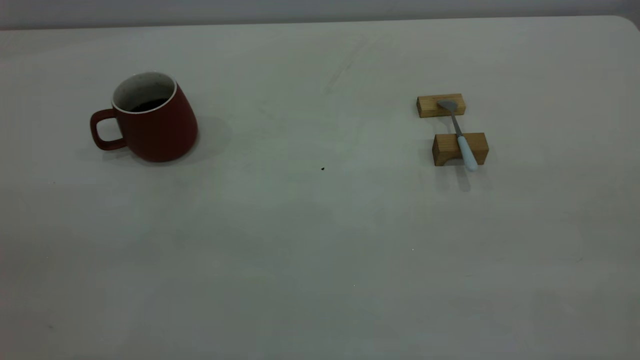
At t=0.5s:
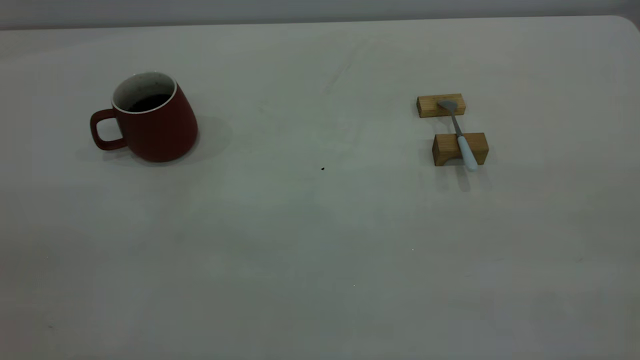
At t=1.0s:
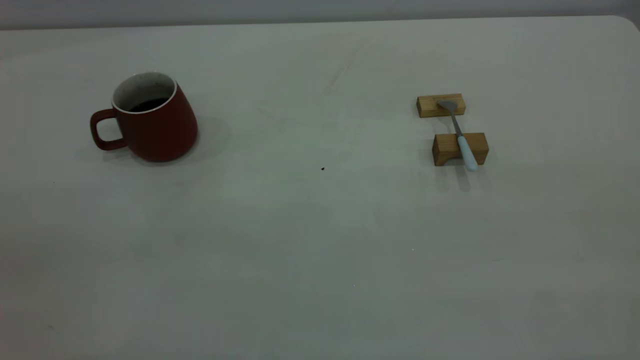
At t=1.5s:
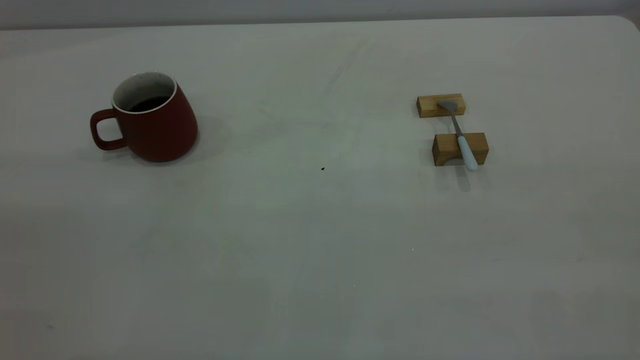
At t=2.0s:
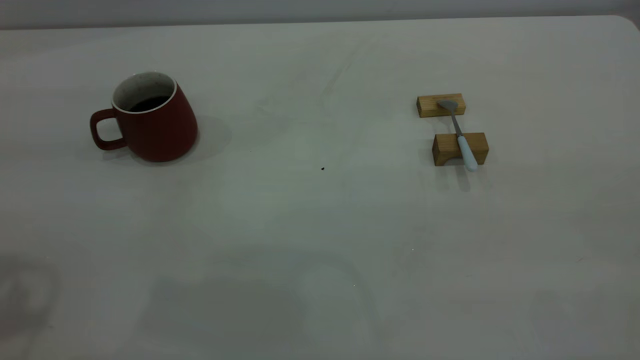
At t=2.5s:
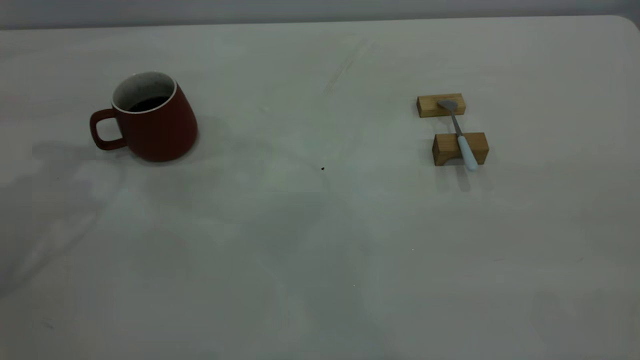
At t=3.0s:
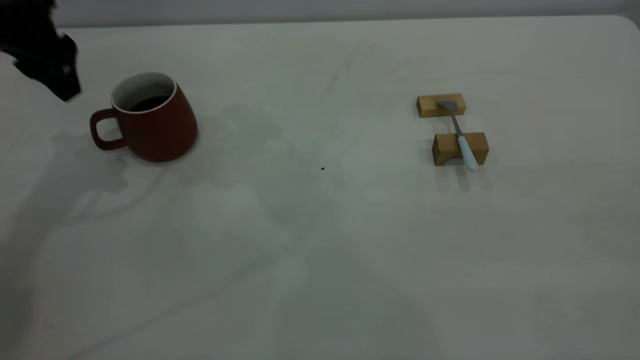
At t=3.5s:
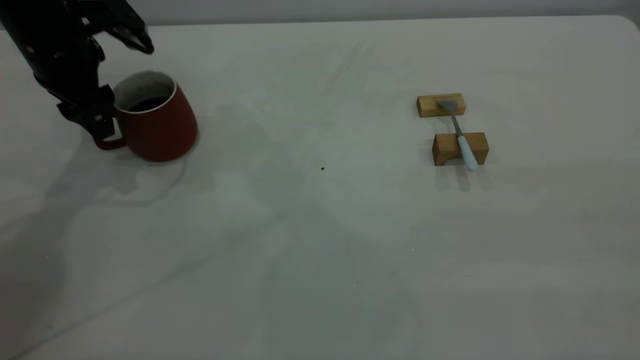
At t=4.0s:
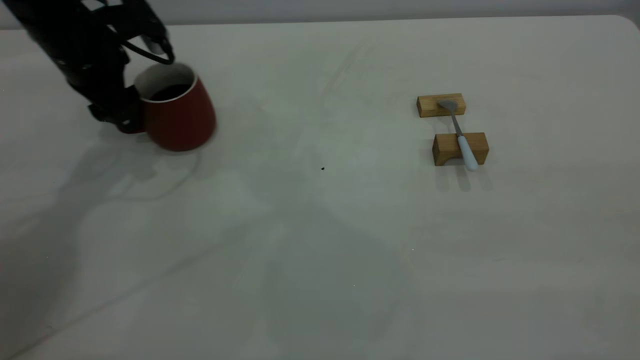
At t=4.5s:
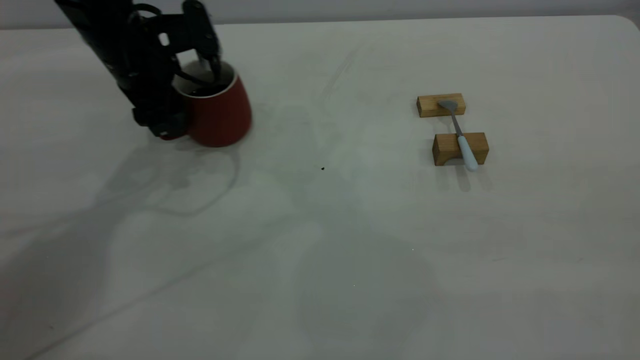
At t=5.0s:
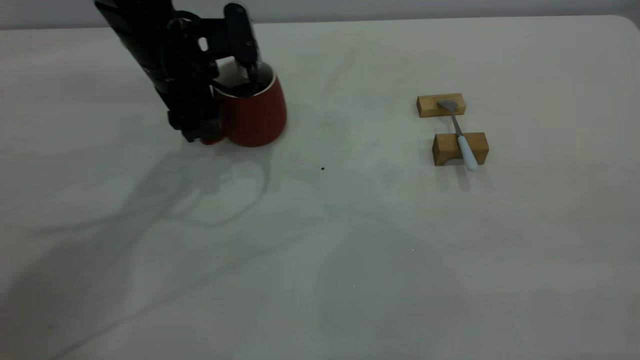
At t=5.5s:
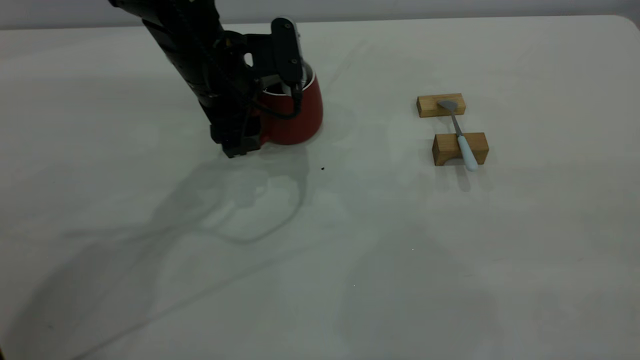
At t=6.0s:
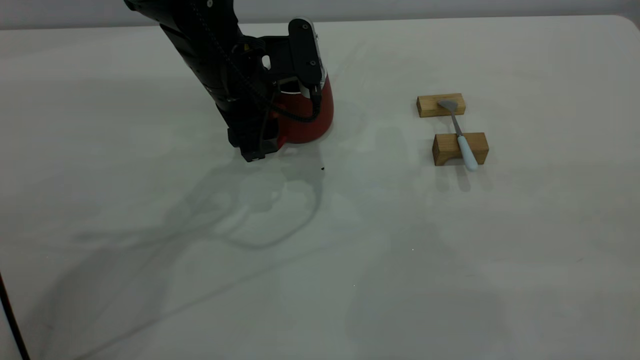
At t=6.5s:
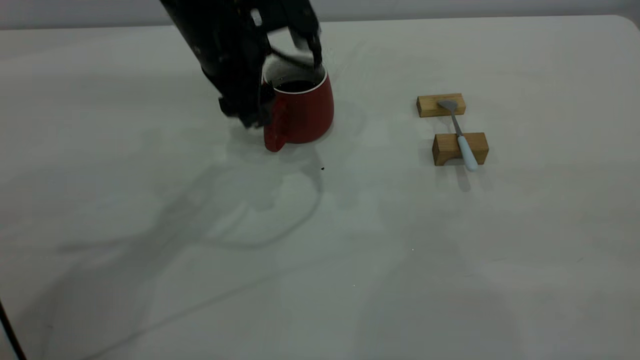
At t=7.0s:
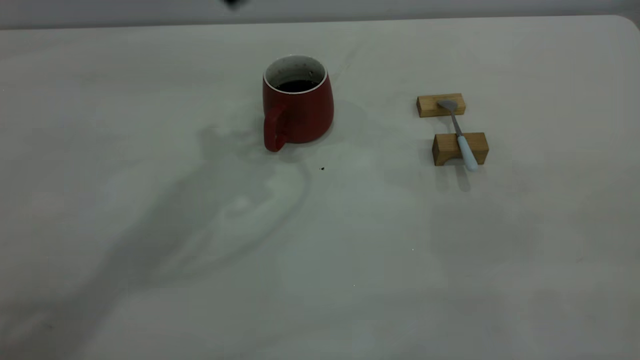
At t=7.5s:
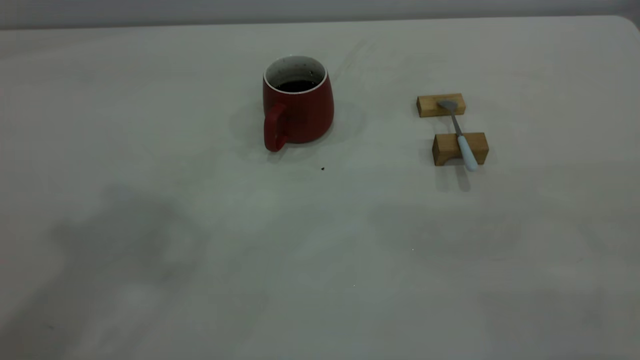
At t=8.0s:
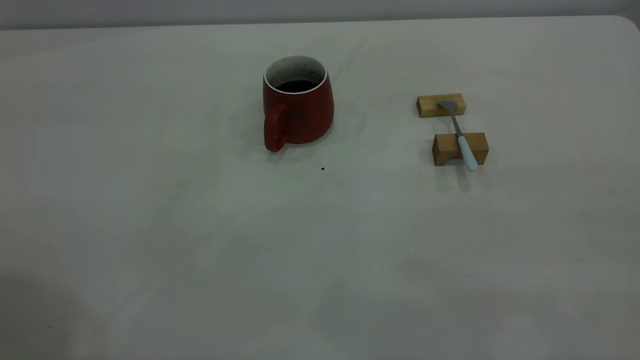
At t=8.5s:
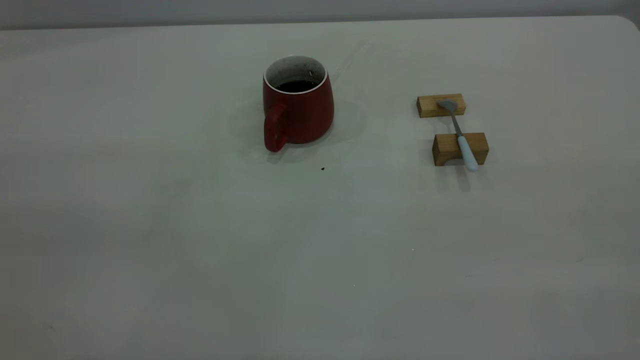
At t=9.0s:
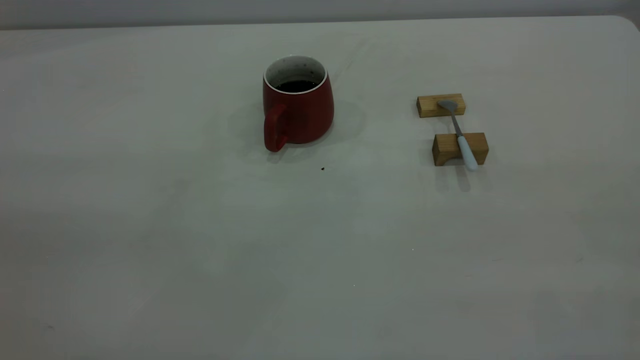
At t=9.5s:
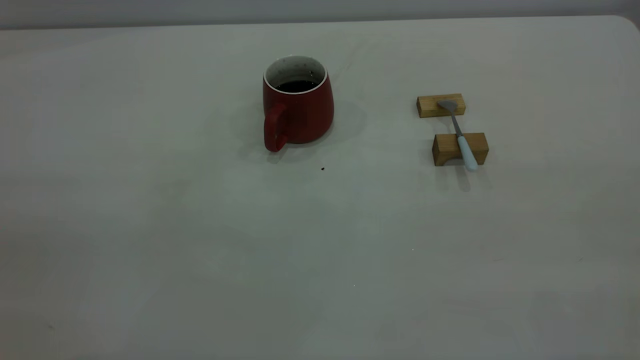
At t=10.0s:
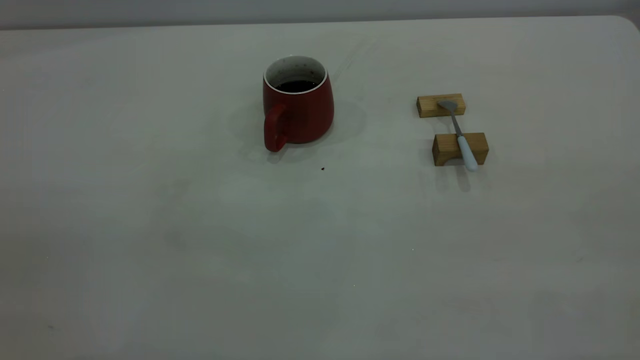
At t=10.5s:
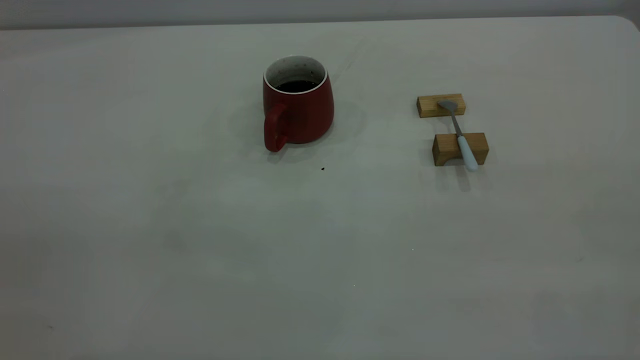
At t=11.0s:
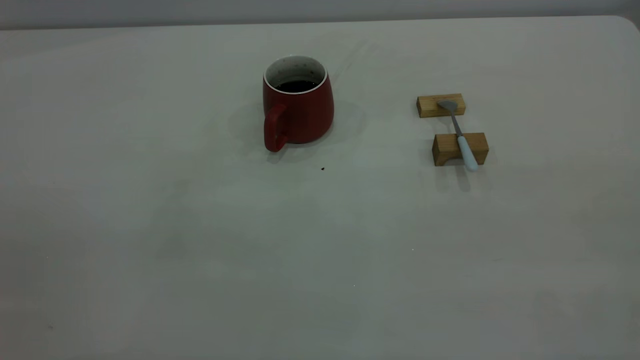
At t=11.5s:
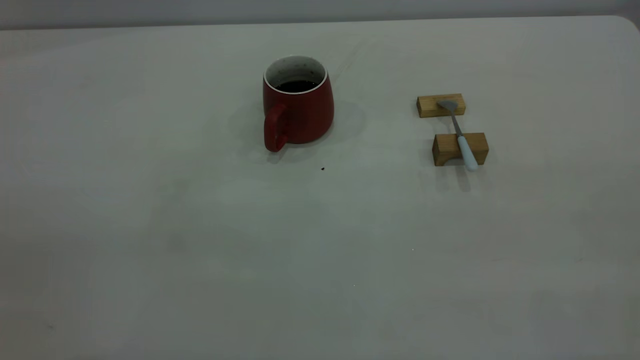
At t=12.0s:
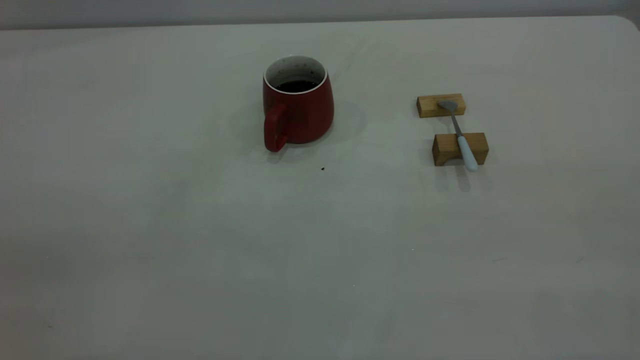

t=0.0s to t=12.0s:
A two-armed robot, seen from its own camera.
Step, t=0.0s to t=6.5s: Move the cup with coffee to the center of view.
t=2.0s to t=4.0s: The left gripper heads forward and downward, covering approximately 30 cm.
t=4.0s to t=6.0s: The left gripper travels to the right by some 15 cm.
t=6.0s to t=8.0s: The left gripper heads upward, backward and to the left, covering about 50 cm.

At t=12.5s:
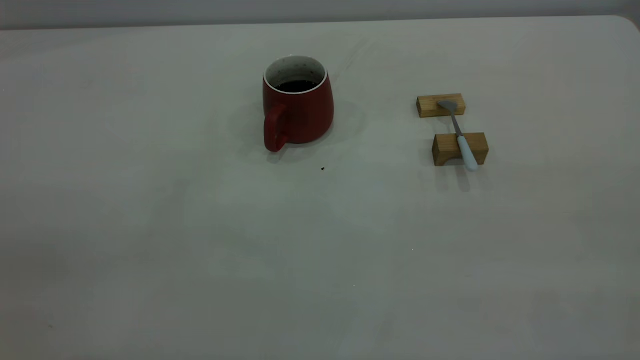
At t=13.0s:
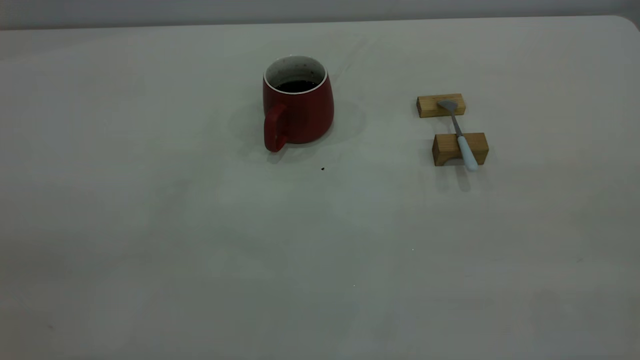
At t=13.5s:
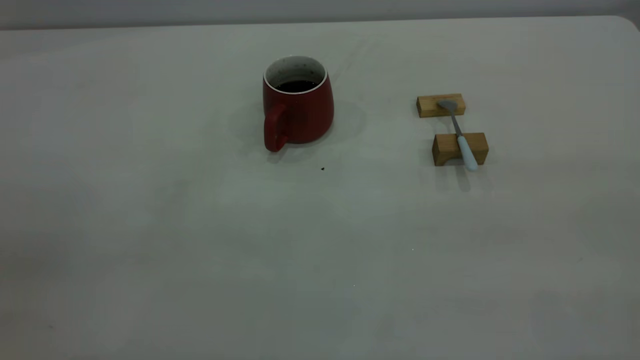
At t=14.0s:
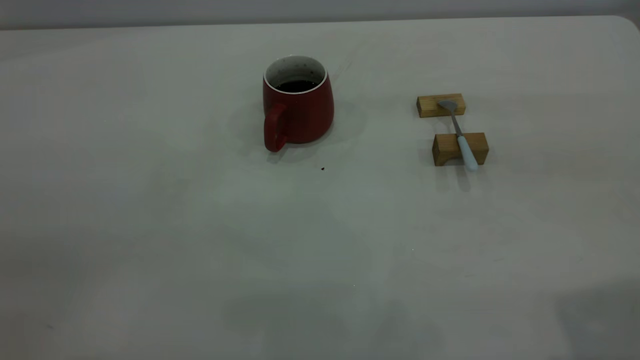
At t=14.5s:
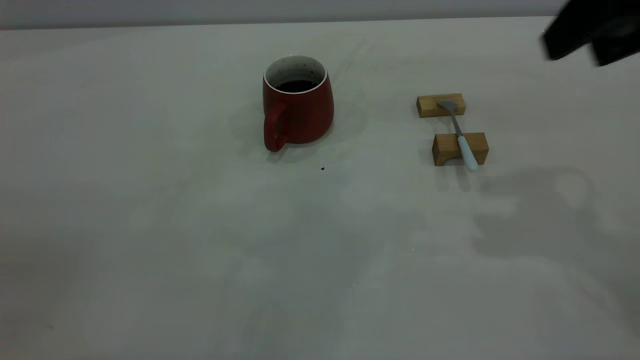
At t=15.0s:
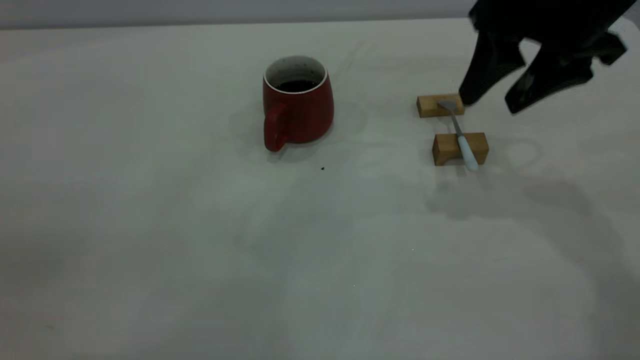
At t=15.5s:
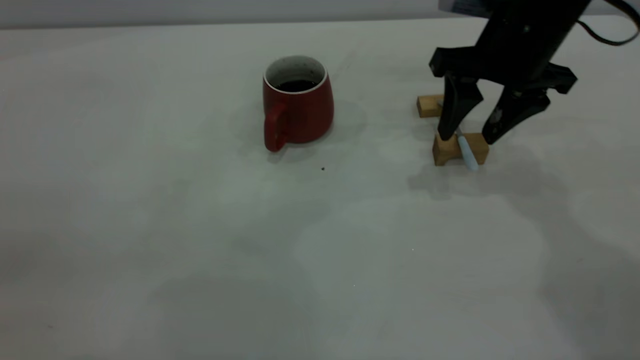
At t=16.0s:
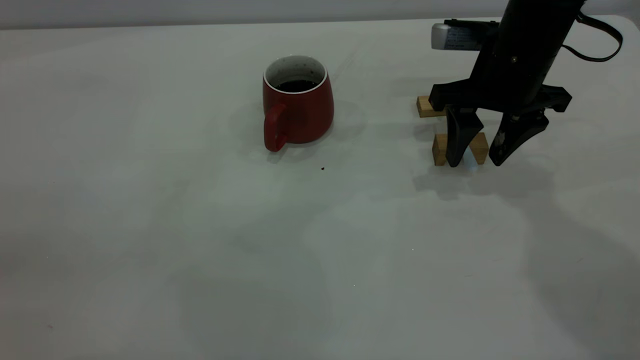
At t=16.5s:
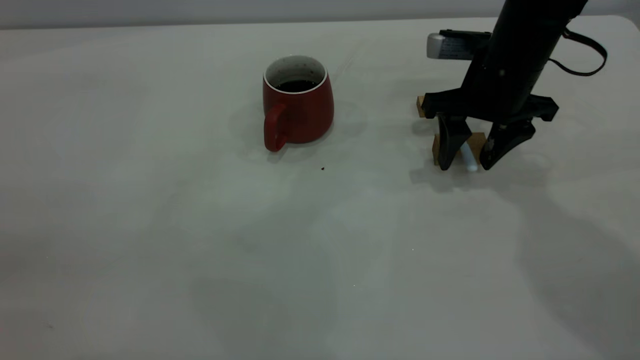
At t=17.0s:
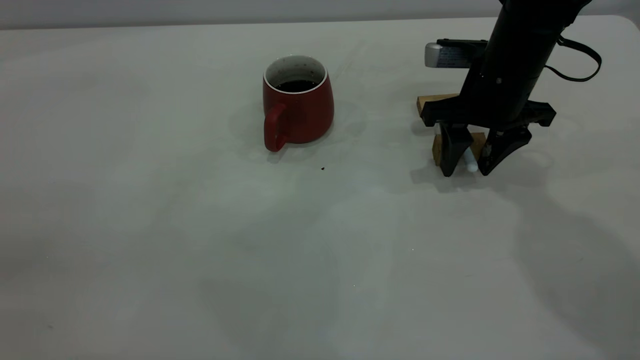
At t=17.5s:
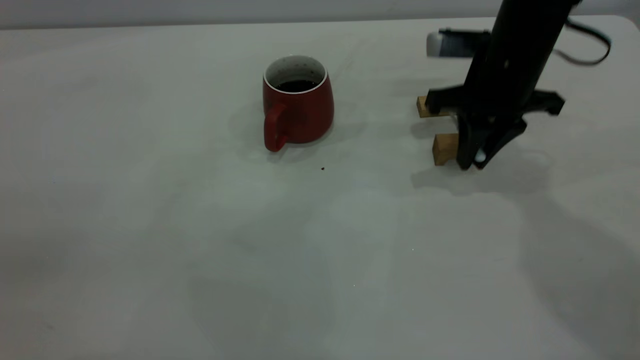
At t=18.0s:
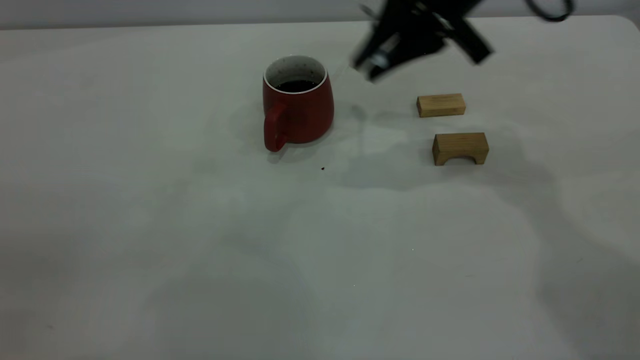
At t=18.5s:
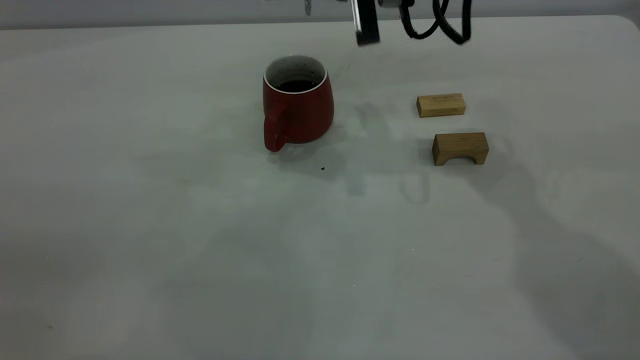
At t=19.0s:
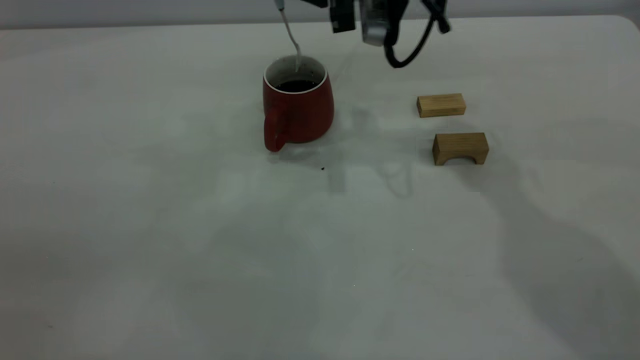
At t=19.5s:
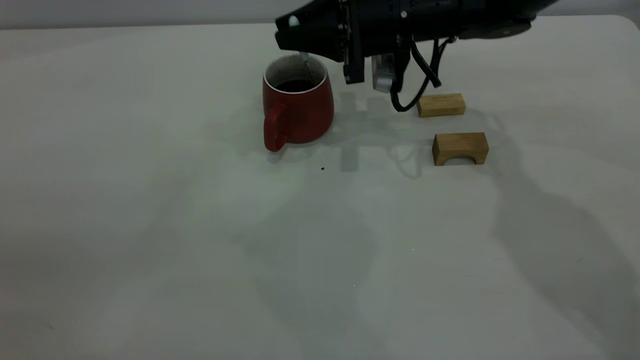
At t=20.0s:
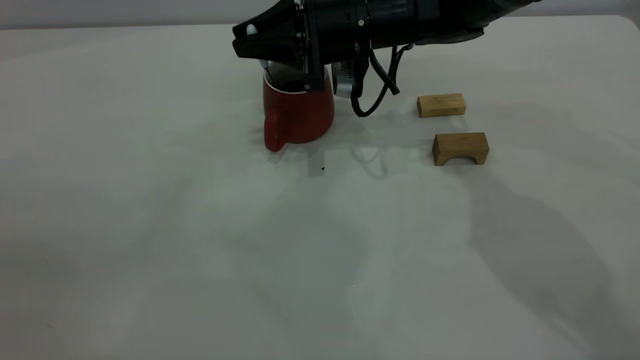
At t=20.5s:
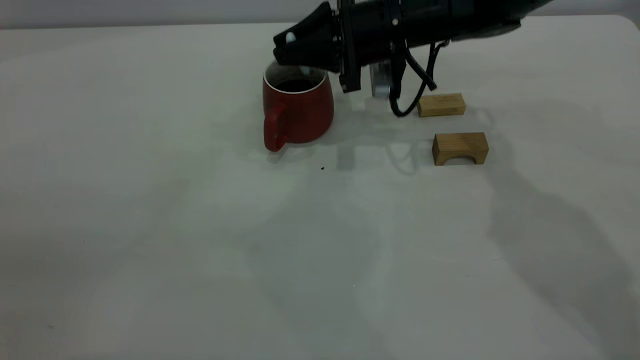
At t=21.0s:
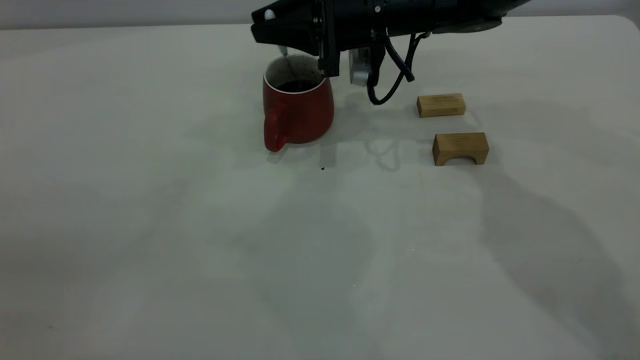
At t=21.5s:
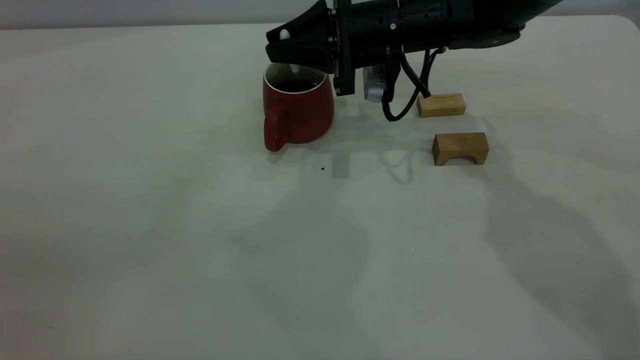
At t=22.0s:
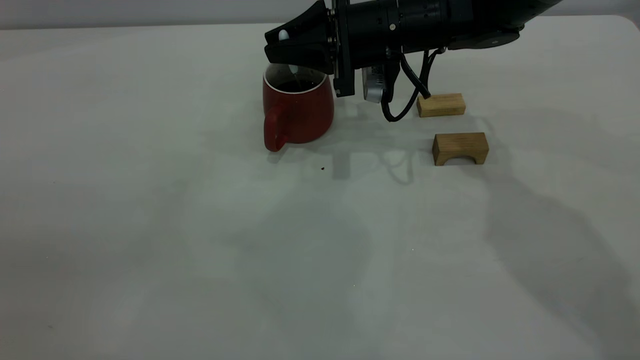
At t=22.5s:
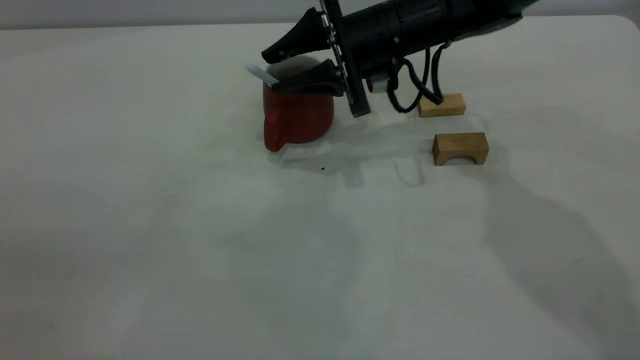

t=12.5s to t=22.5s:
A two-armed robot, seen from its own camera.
Step, t=12.5s to t=17.5s: Pick up the spoon.
Step, t=18.0s to t=22.0s: Stir the coffee in the cup.
t=12.5s to t=14.5s: The right gripper goes about 30 cm forward.
t=14.5s to t=16.5s: The right gripper heads downward and forward, covering about 20 cm.
t=16.5s to t=18.5s: The right gripper shifts roughly 15 cm upward and to the left, and closes up.
t=18.5s to t=20.5s: The right gripper heads downward and forward, covering roughly 10 cm.
t=20.5s to t=22.5s: The right gripper opens its fingers.
